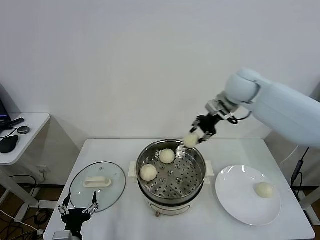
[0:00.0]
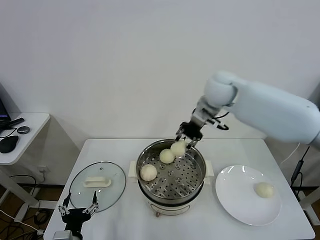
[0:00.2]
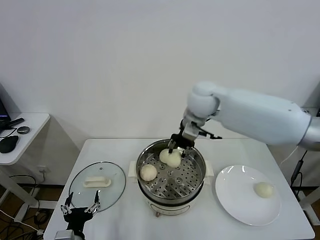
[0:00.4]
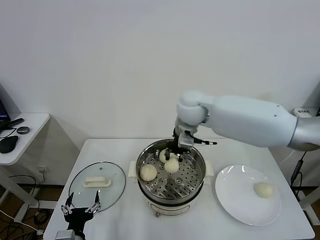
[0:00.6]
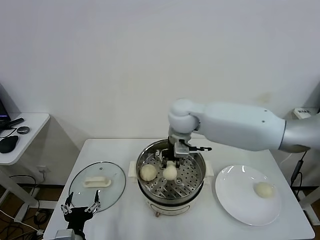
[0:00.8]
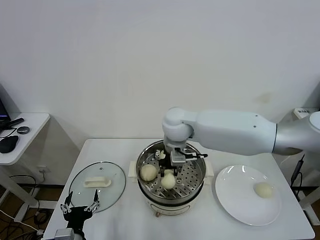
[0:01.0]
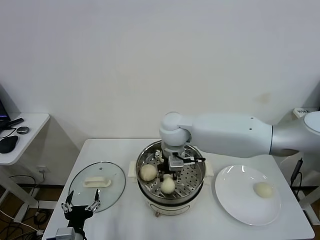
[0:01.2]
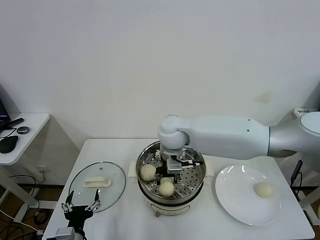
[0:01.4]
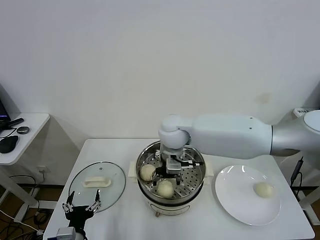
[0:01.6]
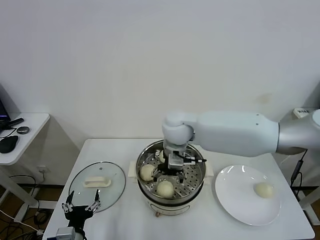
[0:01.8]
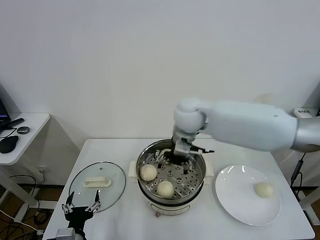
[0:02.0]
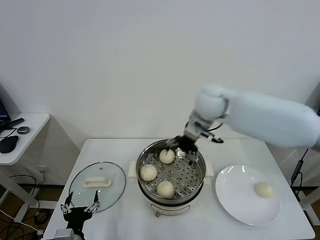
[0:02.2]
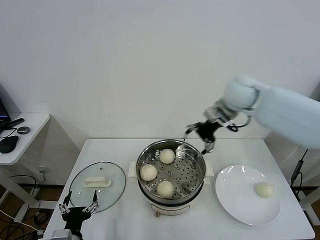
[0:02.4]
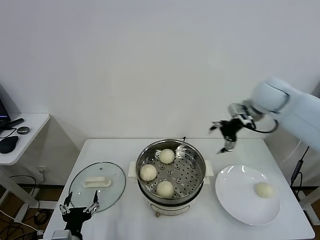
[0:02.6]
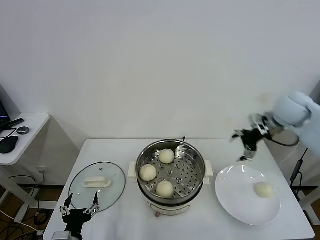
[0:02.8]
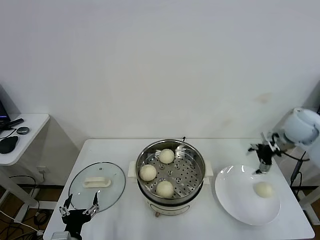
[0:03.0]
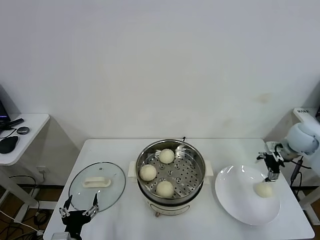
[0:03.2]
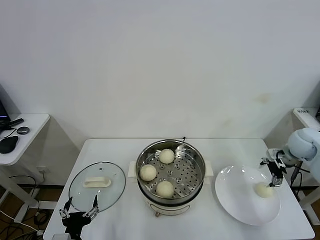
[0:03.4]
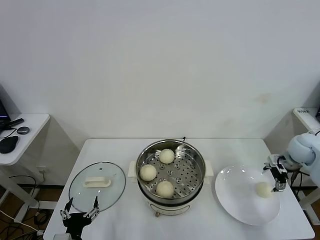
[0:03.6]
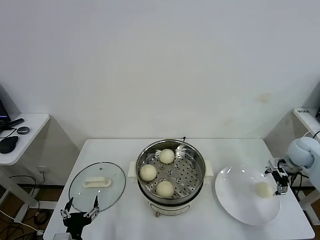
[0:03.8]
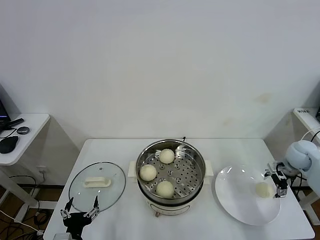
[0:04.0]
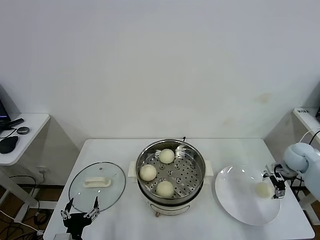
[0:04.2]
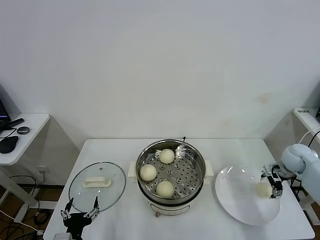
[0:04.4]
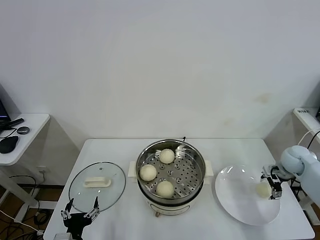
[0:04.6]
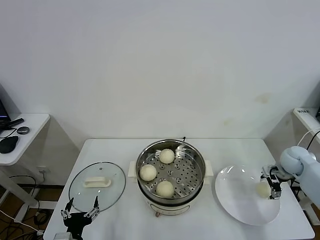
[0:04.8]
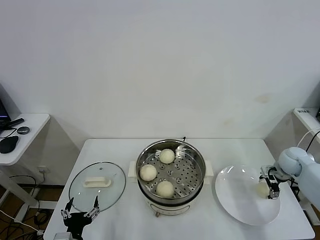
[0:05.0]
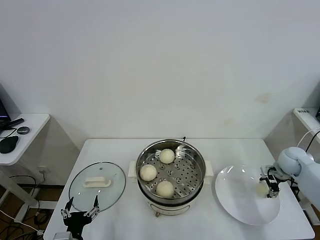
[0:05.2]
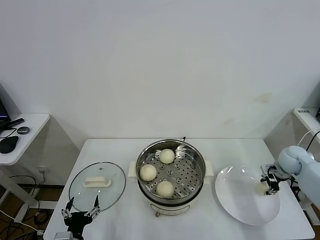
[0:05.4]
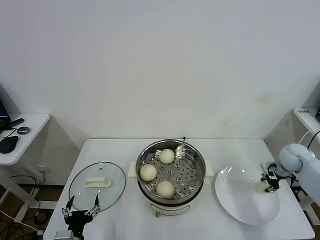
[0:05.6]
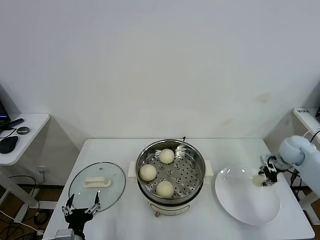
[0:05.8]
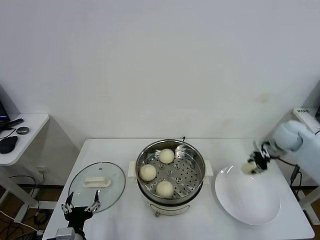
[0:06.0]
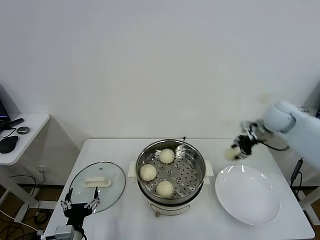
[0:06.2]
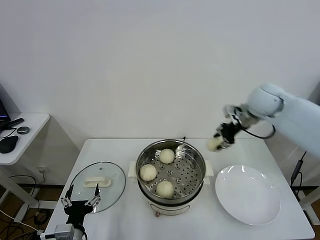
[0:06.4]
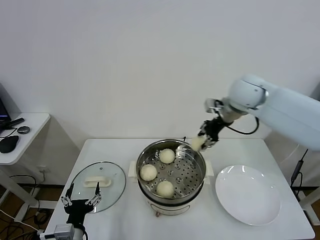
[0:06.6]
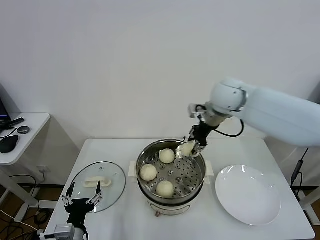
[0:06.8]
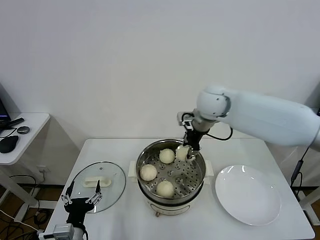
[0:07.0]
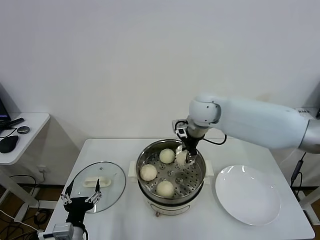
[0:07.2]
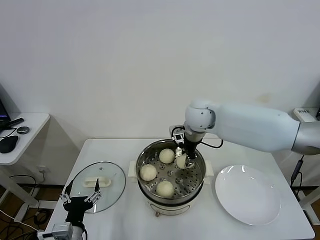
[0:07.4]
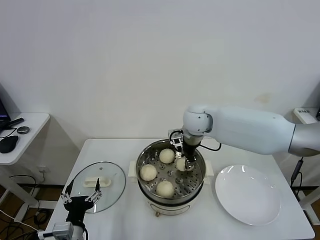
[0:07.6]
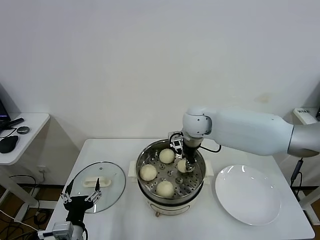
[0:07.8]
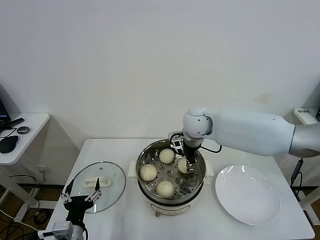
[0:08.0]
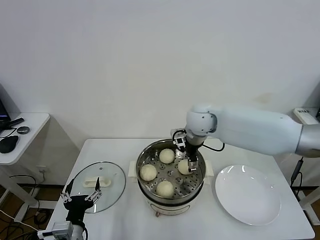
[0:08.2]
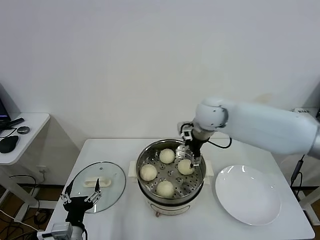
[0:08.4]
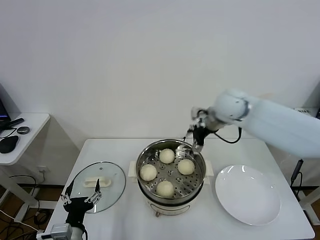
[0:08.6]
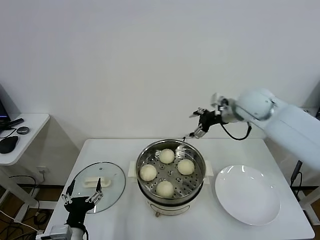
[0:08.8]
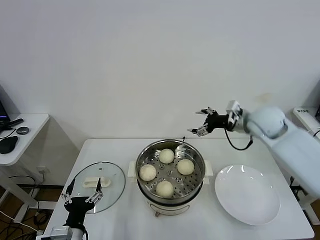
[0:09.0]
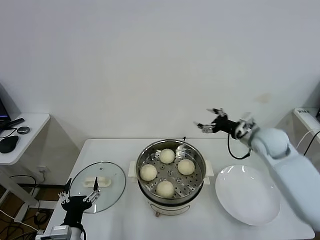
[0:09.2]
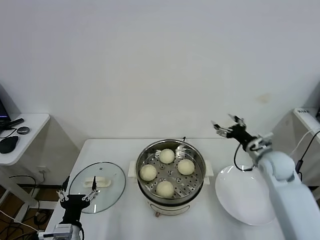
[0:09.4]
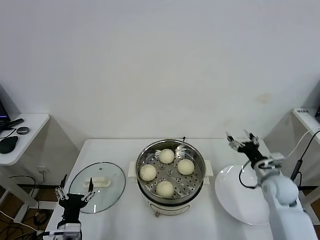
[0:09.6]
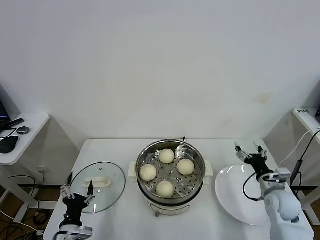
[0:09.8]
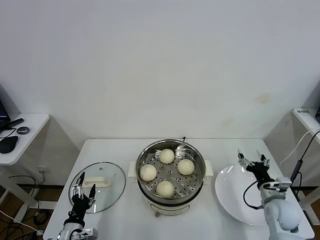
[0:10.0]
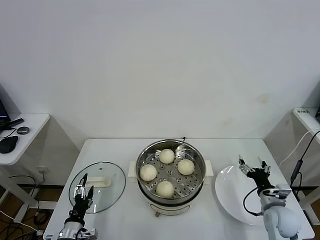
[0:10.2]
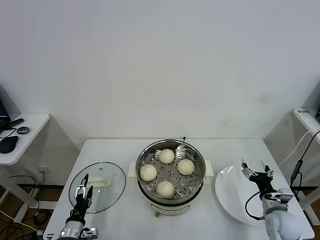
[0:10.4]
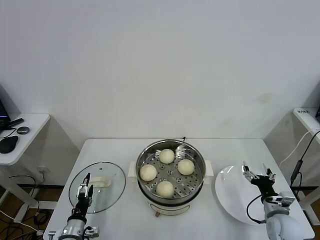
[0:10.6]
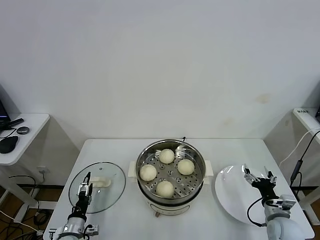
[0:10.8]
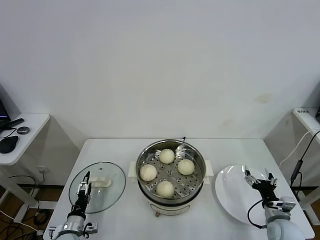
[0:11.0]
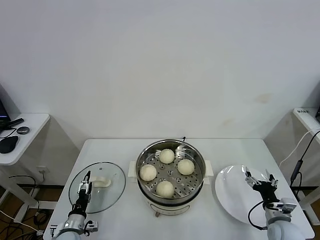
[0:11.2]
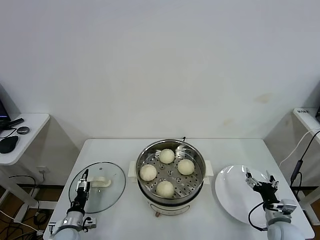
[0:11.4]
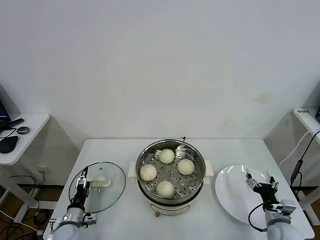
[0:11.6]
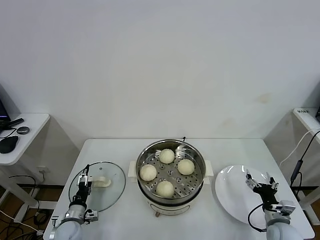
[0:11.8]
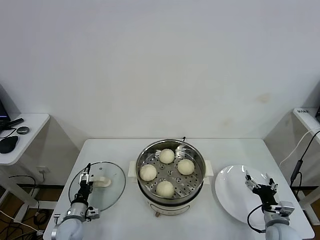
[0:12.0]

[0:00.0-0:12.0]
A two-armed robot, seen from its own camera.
Task of the whole recording: take steamed baozi put them in steamer.
Step, 0:00.0 to 0:01.8: Place the baozi on the steamer with right gripper.
Step, 0:02.2 to 0:05.2: Grasp the baozi in the plate with right gripper.
Step, 0:05.4 to 0:08.4: Place the baozi on the steamer with right gripper.
0:00.0 to 0:01.6: The right gripper goes approximately 25 cm to the left, downward and backward, and opens up.
0:01.6 to 0:03.0: The right gripper is displaced to the right by roughly 40 cm.
0:03.0 to 0:04.4: The right gripper shifts approximately 15 cm downward and to the right.
0:04.4 to 0:06.0: The right gripper travels upward by roughly 5 cm, and closes up.
0:06.0 to 0:07.6: The right gripper travels to the left by about 35 cm.
0:07.6 to 0:09.0: The right gripper is displaced to the right by about 20 cm, and opens up.
0:09.0 to 0:10.4: The left gripper heads downward, to the left and forward, covering some 15 cm. The right gripper heads downward and backward, covering some 35 cm.
0:10.4 to 0:12.0: The left gripper moves forward, some 10 cm.

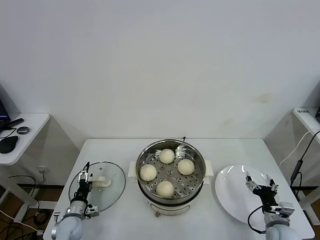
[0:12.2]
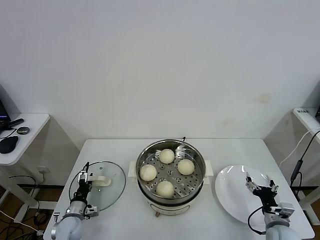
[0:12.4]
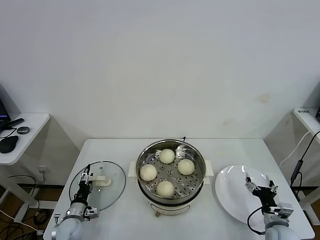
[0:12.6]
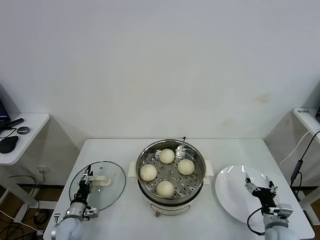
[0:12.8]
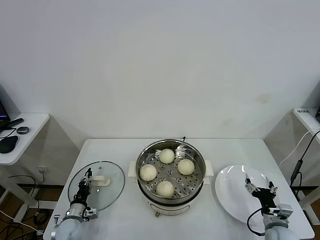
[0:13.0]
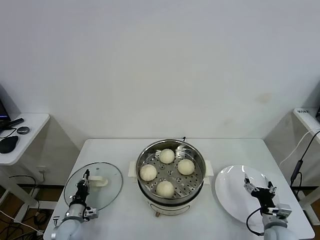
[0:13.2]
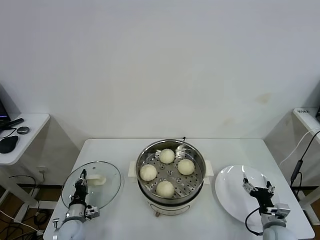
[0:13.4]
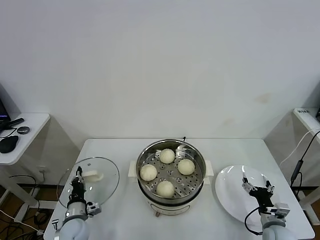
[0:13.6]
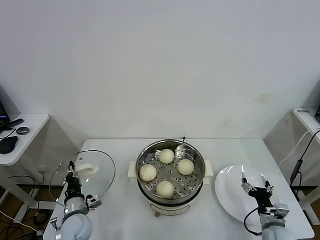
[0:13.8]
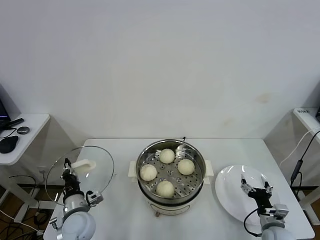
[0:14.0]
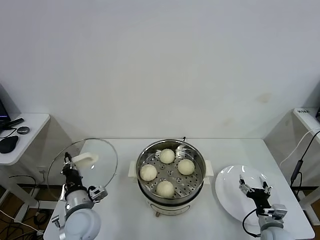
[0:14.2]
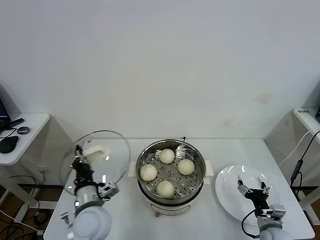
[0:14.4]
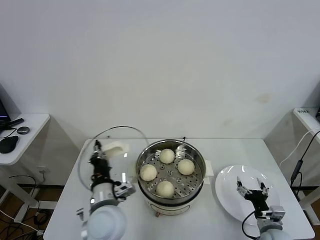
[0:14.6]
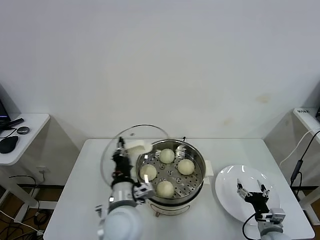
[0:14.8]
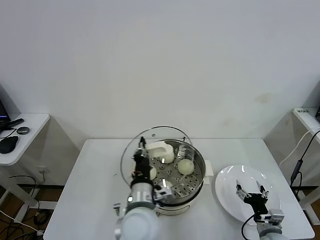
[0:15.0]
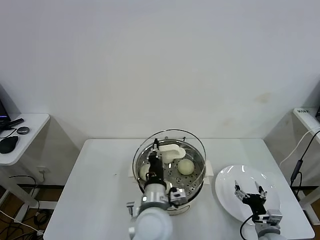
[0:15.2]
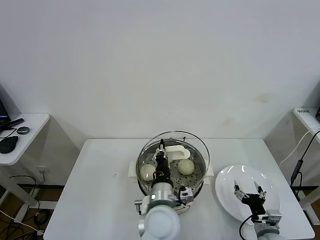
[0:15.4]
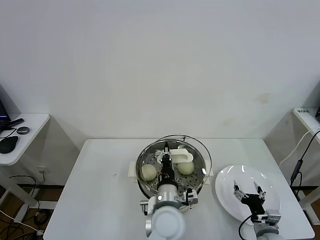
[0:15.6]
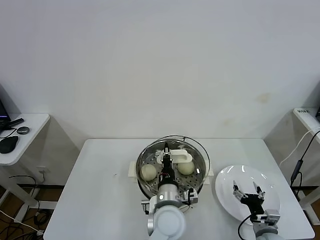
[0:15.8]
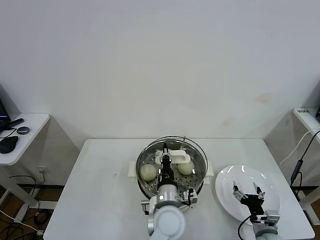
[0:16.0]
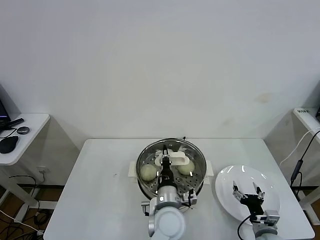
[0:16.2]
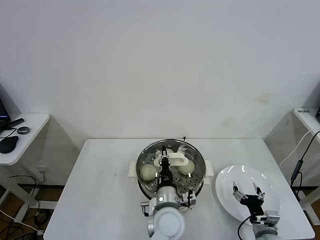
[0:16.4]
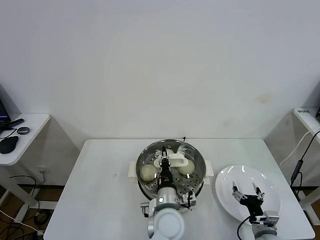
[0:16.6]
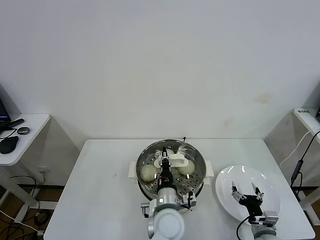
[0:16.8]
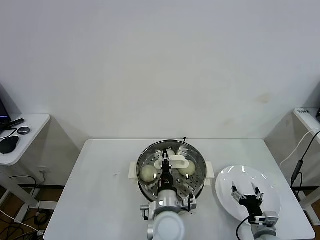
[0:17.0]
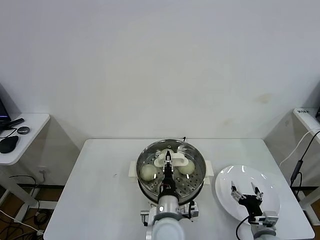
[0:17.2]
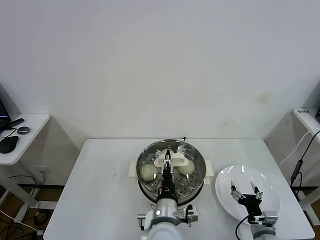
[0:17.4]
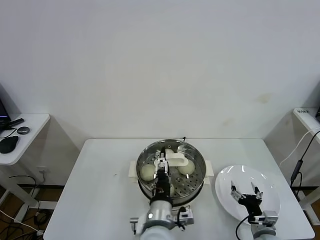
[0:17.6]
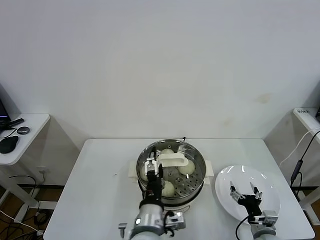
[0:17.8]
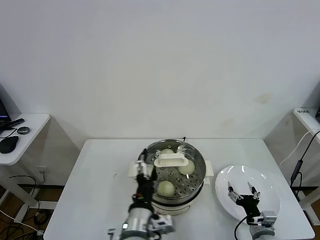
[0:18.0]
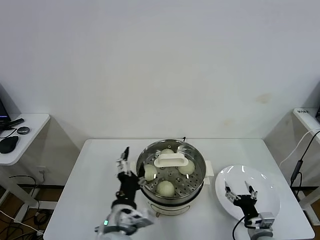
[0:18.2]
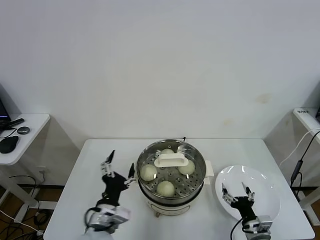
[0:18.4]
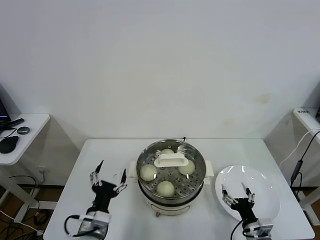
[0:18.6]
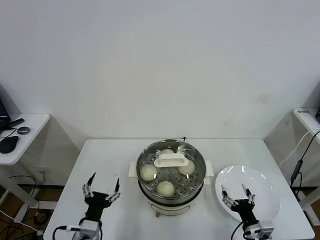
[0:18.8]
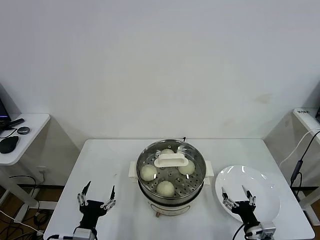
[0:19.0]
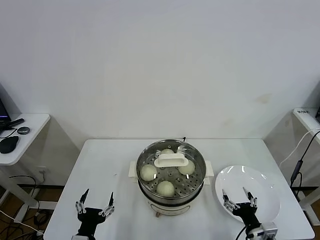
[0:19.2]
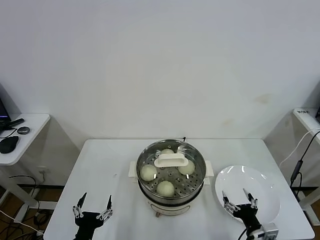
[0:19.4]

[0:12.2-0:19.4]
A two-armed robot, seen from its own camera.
Task of the whole recording: take steamed baozi put them in steamer.
Step, 0:13.6 to 0:17.8: Place the pot lid on the steamer with left gripper.
0:12.2 to 0:13.6: The left gripper closes up.
0:13.6 to 0:15.0: The left gripper moves to the right and upward, roughly 35 cm.
0:15.0 to 0:16.6: The left gripper moves to the right and downward, roughly 10 cm.
0:16.6 to 0:18.0: The left gripper goes approximately 15 cm backward, upward and to the left, and opens its fingers.
0:18.0 to 0:19.4: The right gripper moves roughly 5 cm, while the left gripper heads to the left and downward, covering approximately 20 cm.
